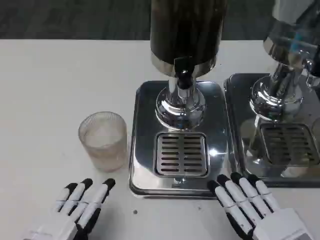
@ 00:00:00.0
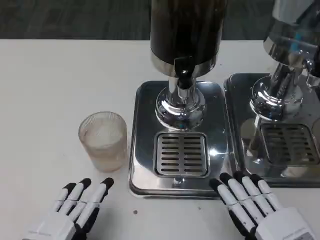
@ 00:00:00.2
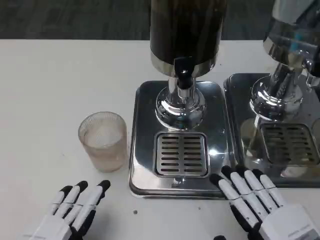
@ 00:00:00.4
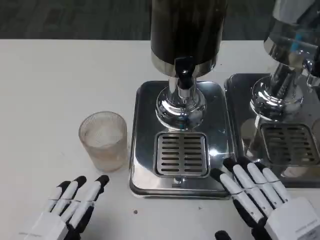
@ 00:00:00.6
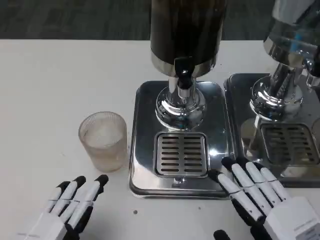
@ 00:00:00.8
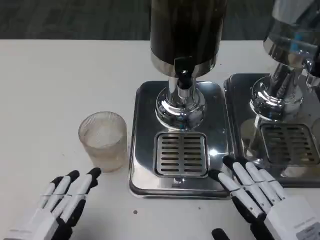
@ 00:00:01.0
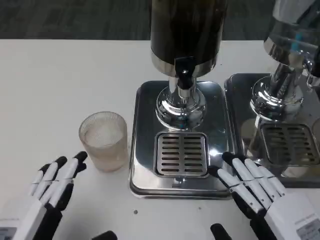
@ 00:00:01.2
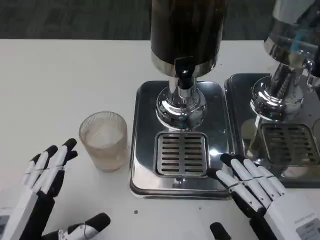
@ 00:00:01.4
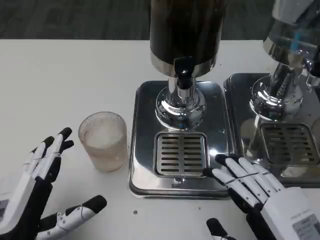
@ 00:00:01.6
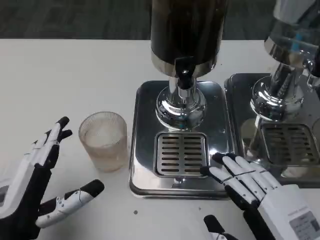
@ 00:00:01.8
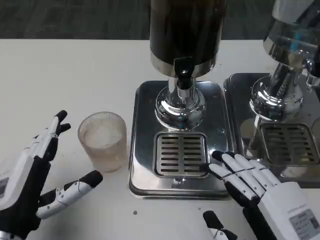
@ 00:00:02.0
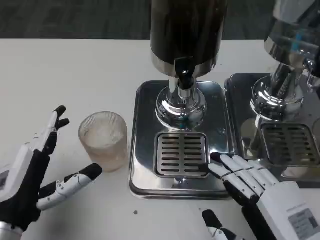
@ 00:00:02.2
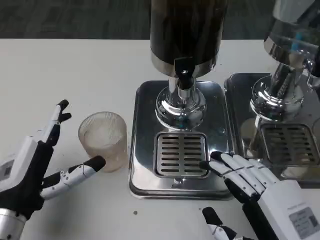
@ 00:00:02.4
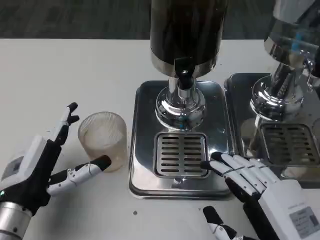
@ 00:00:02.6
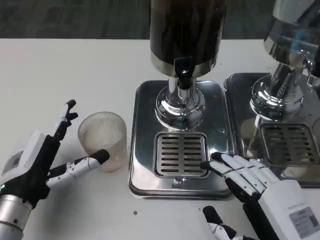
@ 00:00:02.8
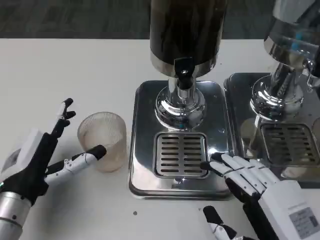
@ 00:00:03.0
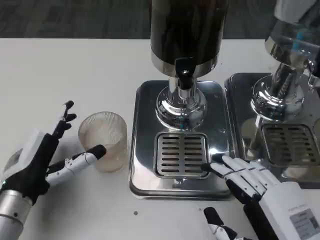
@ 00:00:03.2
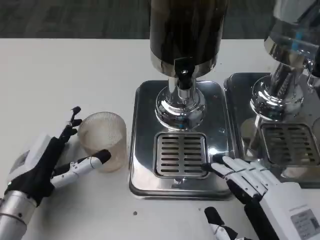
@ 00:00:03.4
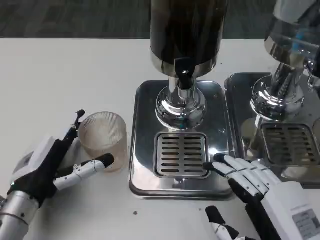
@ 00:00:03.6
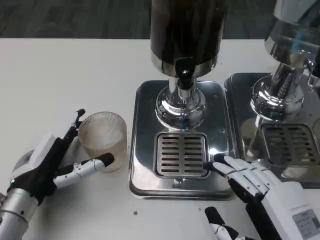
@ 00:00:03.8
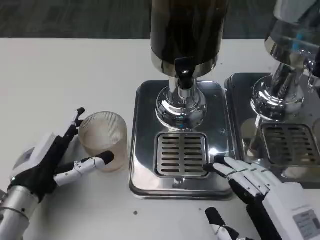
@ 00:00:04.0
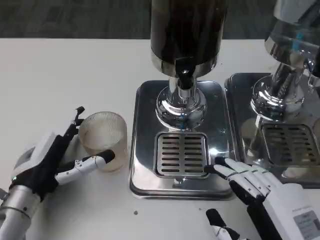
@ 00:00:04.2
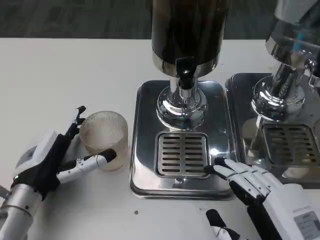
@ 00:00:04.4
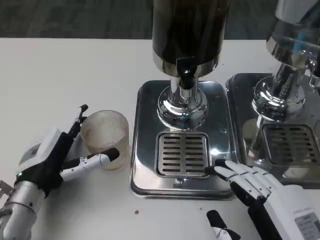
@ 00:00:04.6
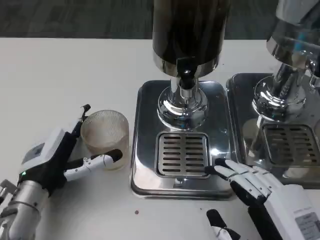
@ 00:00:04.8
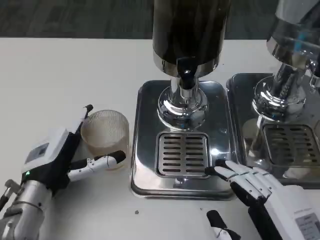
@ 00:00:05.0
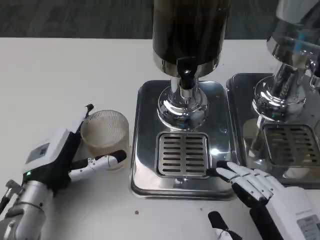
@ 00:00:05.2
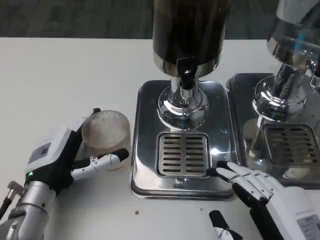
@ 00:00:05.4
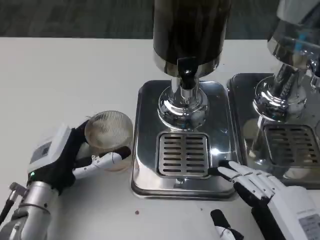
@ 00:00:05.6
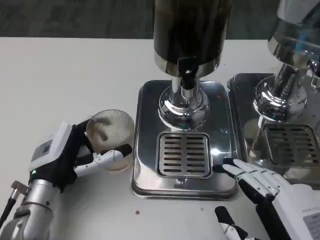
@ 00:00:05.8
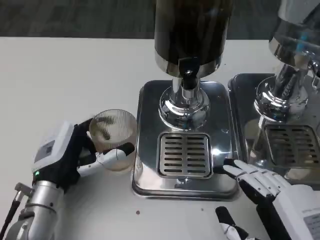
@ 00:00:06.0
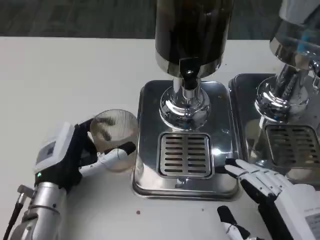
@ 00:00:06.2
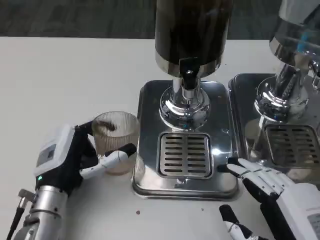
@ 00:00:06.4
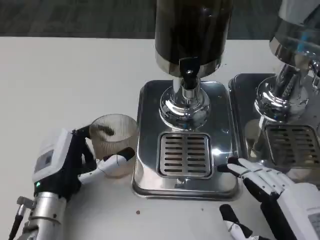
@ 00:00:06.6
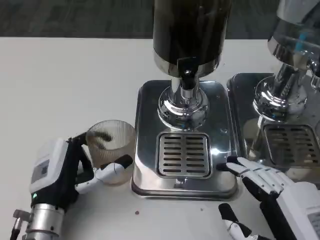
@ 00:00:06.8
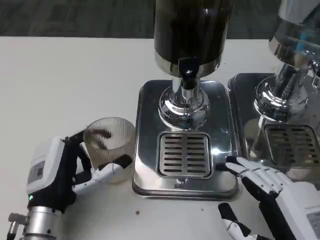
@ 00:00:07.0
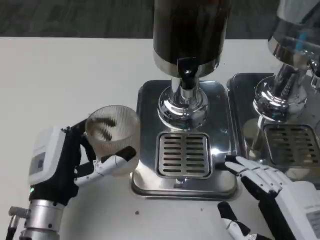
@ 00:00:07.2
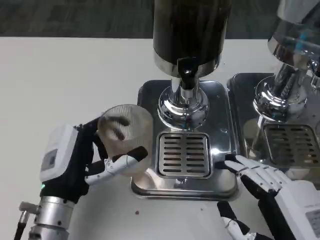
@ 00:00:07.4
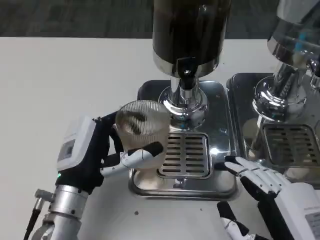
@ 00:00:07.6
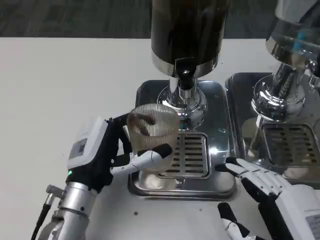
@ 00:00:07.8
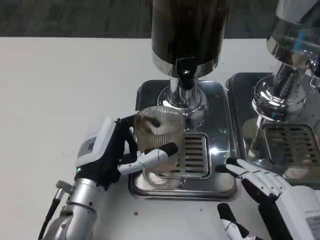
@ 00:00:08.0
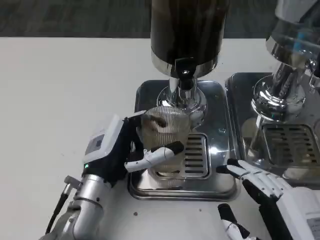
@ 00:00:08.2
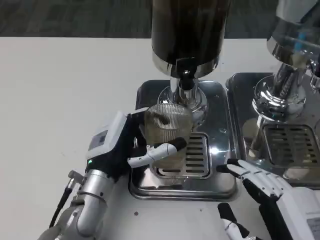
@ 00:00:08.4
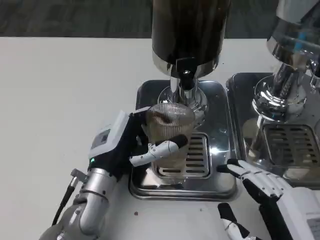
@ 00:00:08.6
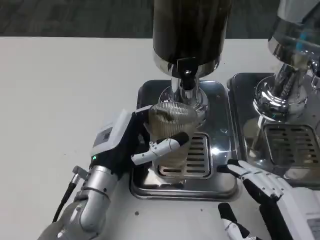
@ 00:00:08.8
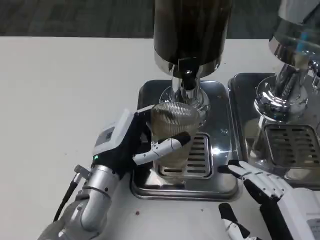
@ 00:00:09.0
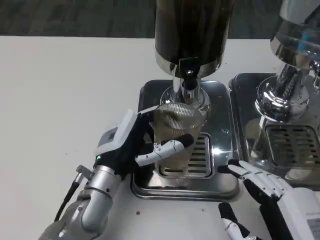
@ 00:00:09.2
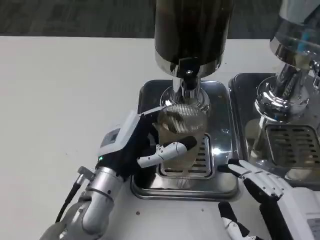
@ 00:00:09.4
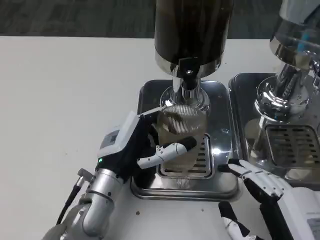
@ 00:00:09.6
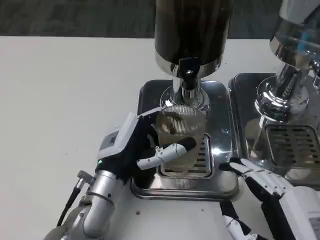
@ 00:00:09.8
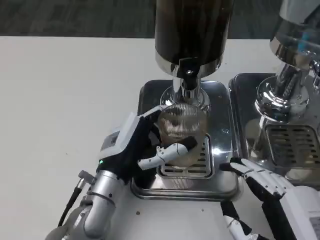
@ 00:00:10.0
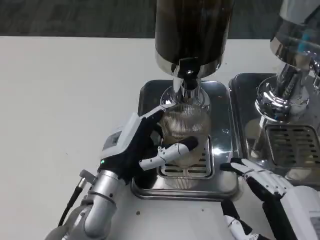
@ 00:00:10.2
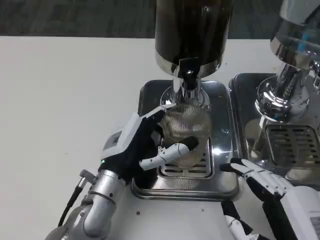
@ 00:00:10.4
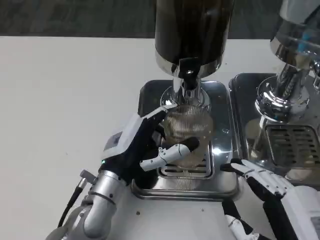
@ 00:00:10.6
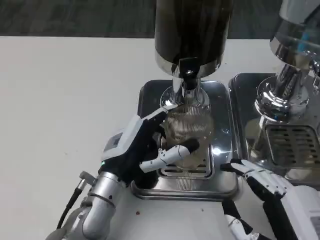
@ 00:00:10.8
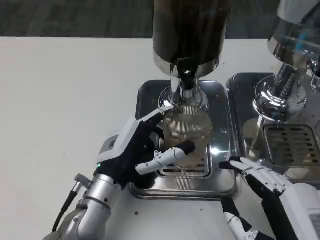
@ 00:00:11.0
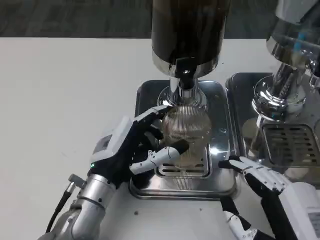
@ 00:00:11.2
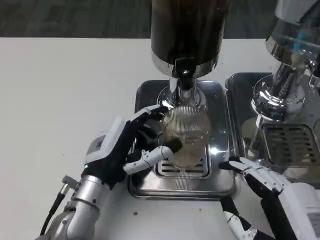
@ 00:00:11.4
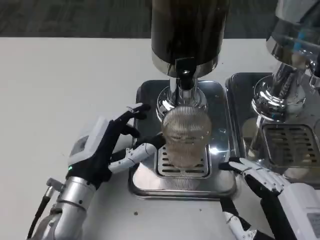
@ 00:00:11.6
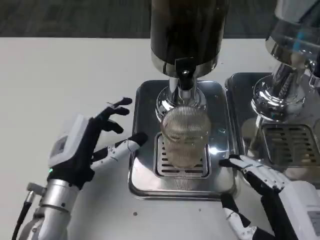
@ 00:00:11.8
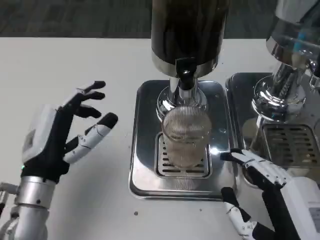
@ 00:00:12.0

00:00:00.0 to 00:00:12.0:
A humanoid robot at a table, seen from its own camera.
Task of the whole recording: Grasp the cup under the faucet to collect the drink, then remove the cup.
00:00:01.6 to 00:00:03.0: The left hand shifts some 10 cm forward.
00:00:03.0 to 00:00:04.4: The hands make only small movements.
00:00:07.6 to 00:00:09.0: The left hand moves about 5 cm.
00:00:09.0 to 00:00:10.4: The hands make only small movements.
00:00:10.4 to 00:00:12.0: The left hand travels to the left by about 10 cm.

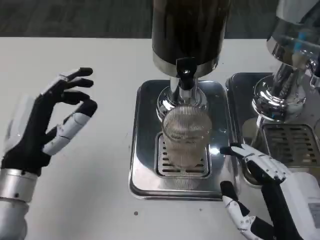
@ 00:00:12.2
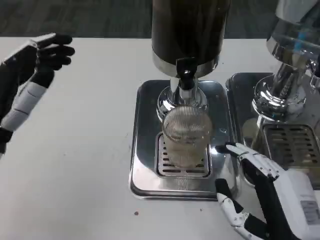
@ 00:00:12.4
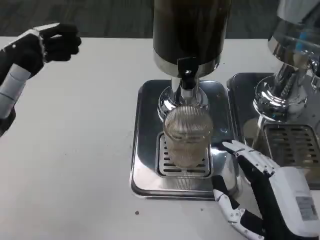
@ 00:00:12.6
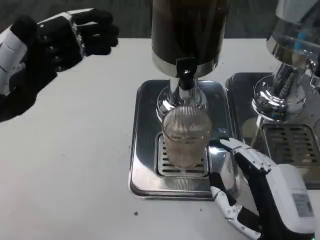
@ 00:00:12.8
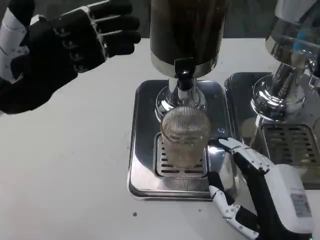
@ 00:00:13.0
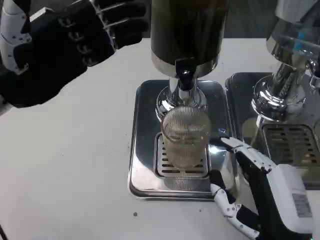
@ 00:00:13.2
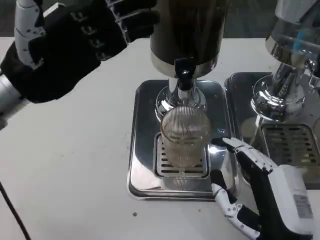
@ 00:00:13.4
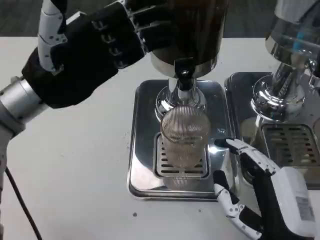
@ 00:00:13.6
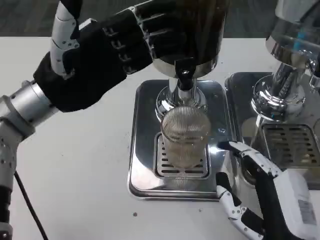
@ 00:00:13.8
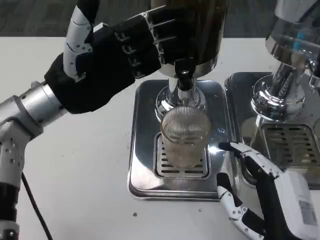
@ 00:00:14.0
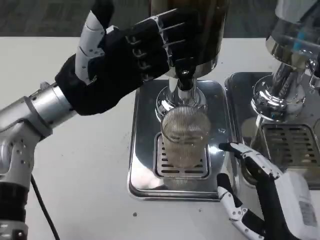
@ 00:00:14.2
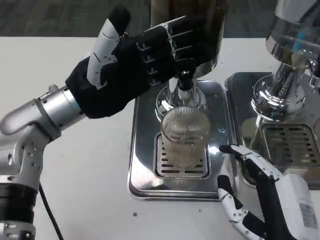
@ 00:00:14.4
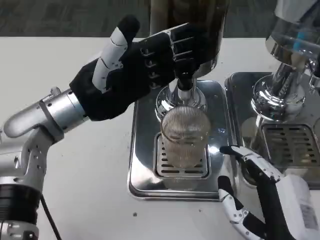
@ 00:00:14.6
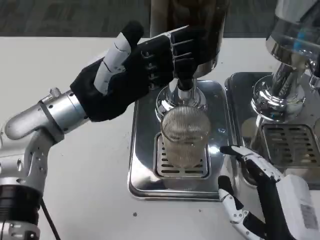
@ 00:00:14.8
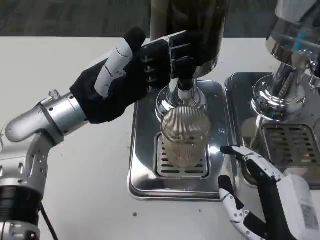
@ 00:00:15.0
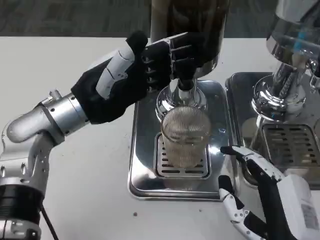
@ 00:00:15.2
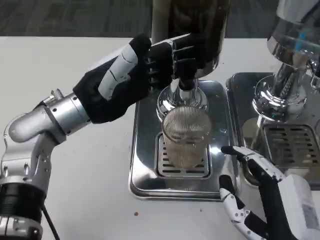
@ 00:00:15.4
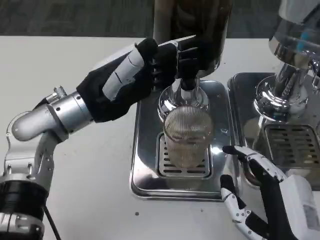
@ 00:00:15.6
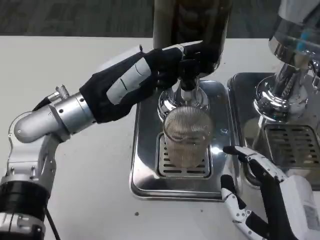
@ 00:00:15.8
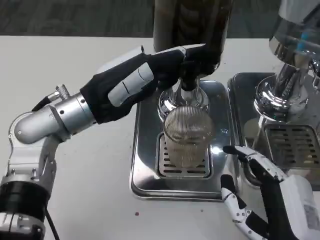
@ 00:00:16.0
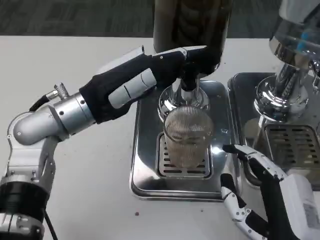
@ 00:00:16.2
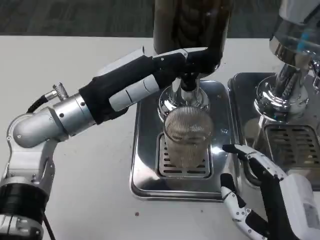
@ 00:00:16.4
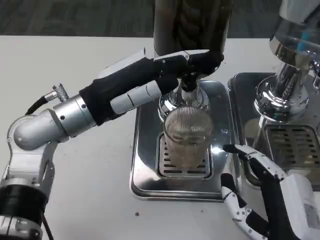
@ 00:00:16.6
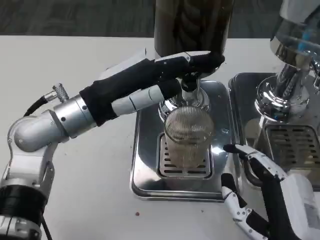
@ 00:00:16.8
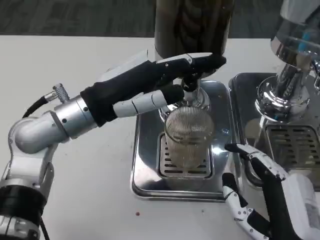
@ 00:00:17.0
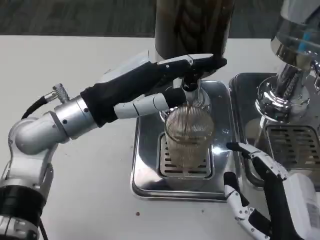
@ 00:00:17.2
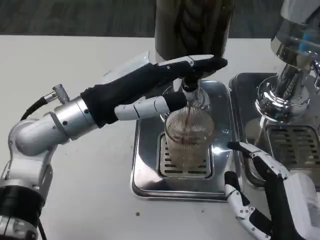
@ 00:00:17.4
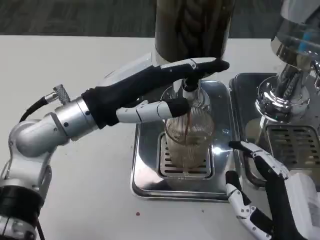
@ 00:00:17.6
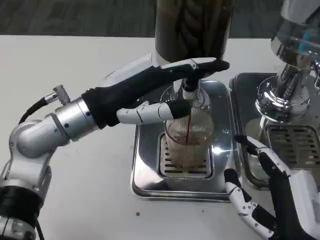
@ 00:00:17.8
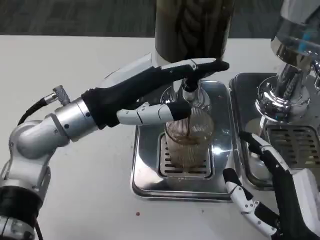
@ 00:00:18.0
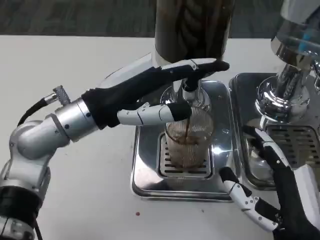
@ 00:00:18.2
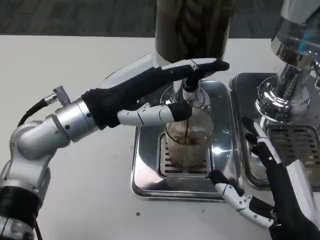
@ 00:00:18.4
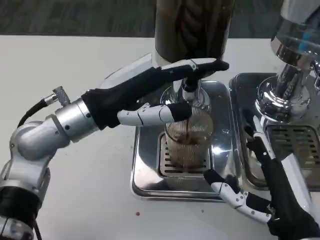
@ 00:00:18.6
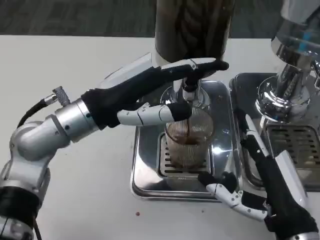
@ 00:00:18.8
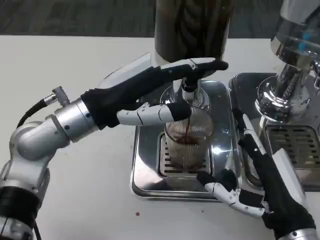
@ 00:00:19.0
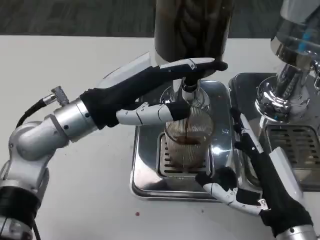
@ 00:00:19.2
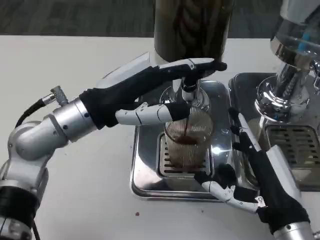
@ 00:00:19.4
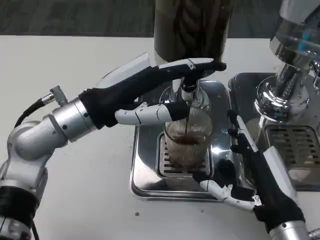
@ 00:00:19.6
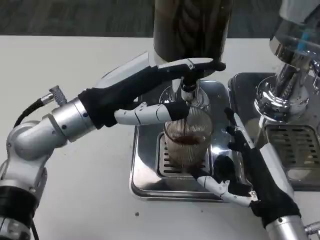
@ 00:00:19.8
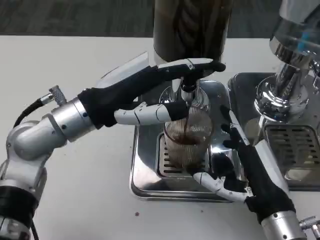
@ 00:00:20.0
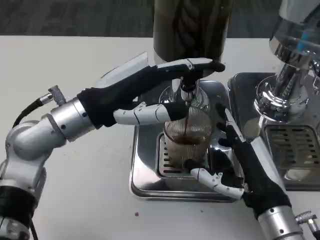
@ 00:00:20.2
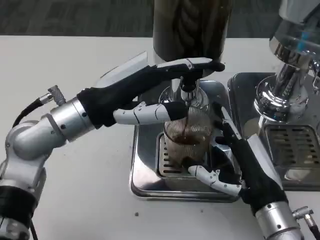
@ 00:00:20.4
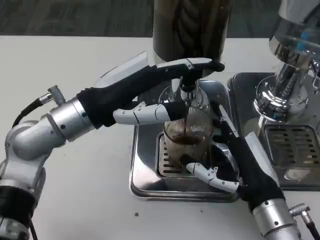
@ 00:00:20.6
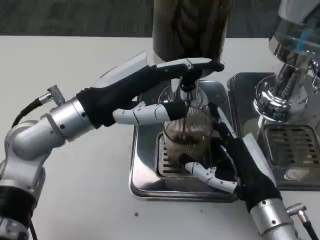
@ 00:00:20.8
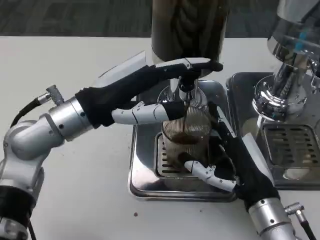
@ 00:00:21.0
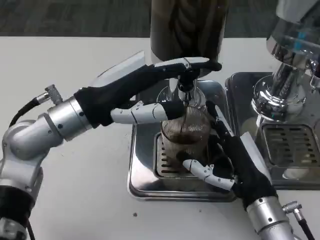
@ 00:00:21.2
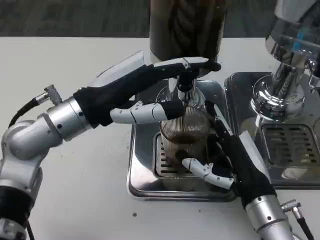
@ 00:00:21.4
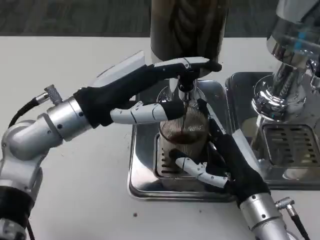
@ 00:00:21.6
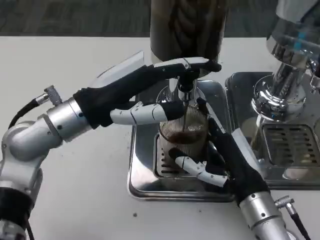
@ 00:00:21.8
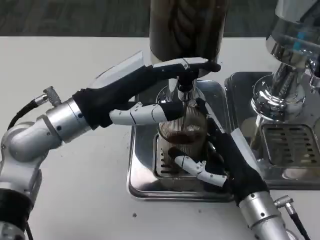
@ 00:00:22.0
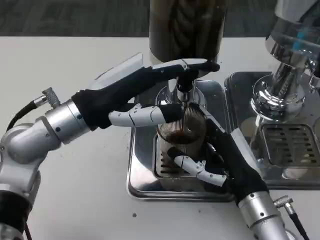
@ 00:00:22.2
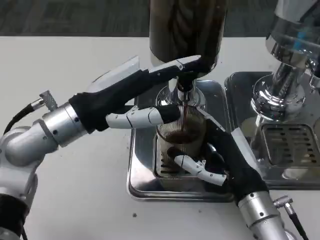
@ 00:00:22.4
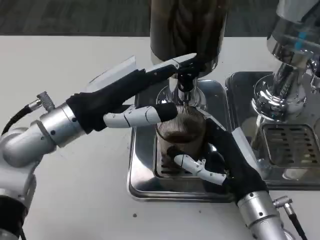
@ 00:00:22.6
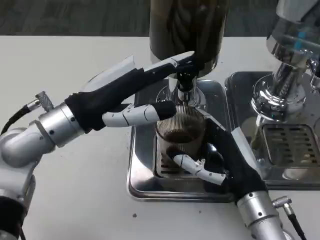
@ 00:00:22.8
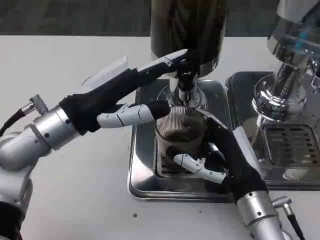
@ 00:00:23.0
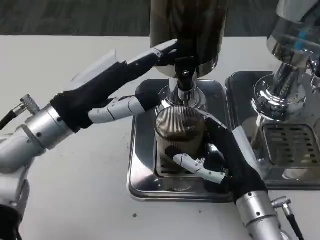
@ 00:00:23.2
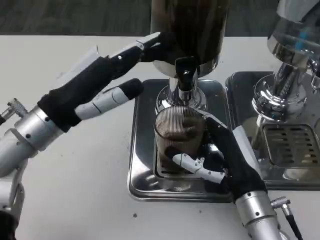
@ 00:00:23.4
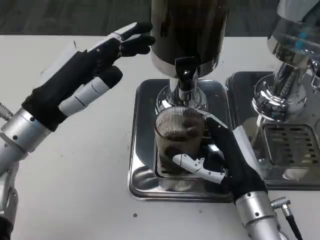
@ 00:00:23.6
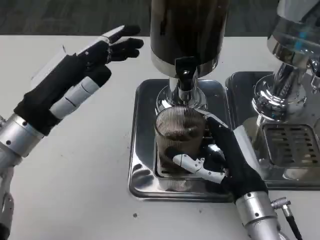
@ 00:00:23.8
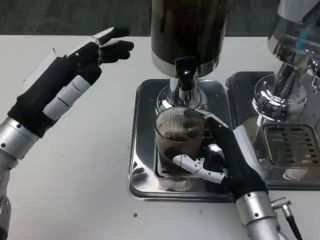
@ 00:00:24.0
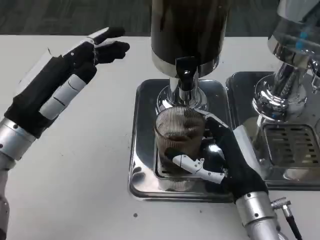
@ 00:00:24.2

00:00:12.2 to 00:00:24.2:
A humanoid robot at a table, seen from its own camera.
Task of the whole recording: Grasp the cup under the faucet to collect the drink, then remove the cup.
00:00:12.2 to 00:00:13.8: The left hand shifts roughly 15 cm upward and forward.
00:00:18.2 to 00:00:19.8: There are only small adjustments of the hands.
00:00:21.2 to 00:00:22.6: The two hands keep their place.
00:00:22.6 to 00:00:24.2: The left hand shifts some 5 cm to the left.
